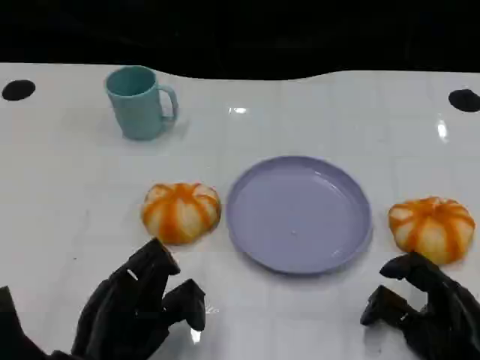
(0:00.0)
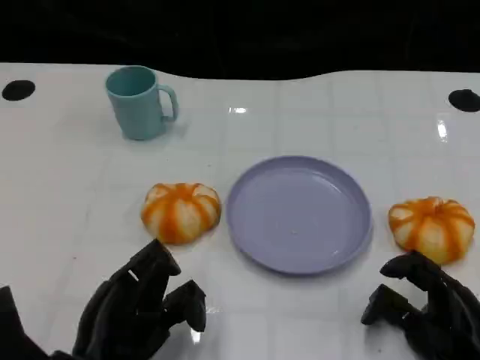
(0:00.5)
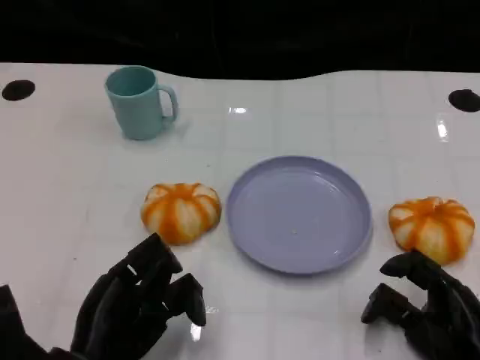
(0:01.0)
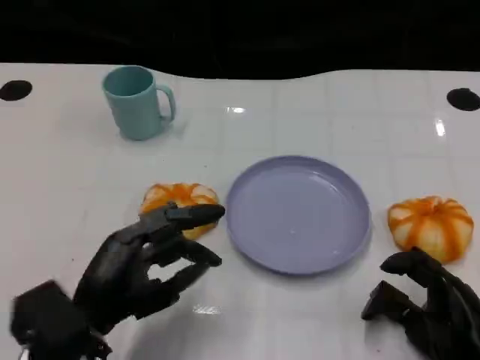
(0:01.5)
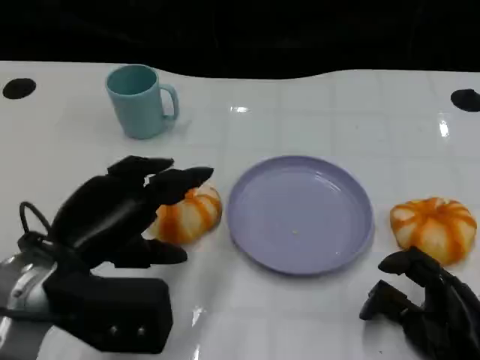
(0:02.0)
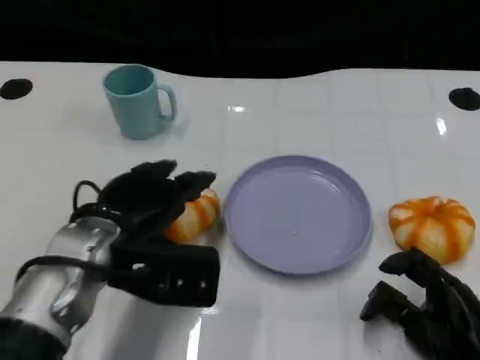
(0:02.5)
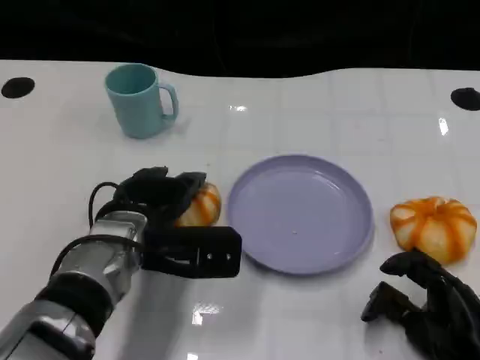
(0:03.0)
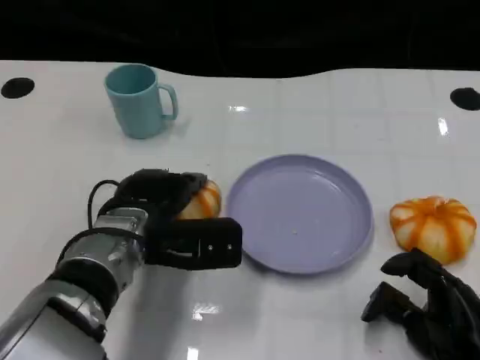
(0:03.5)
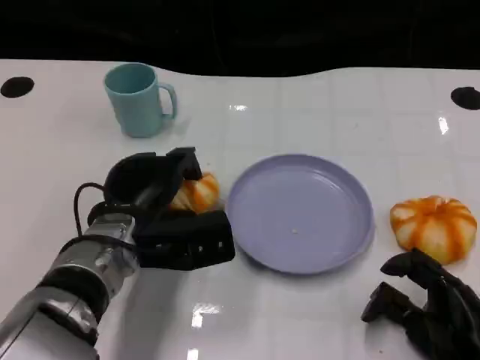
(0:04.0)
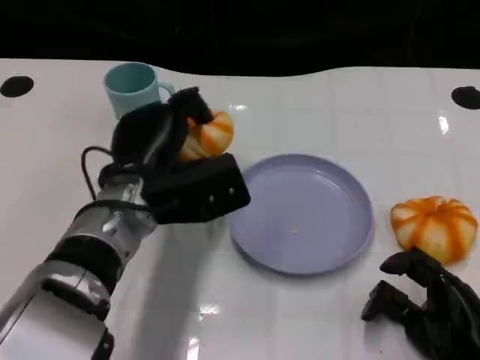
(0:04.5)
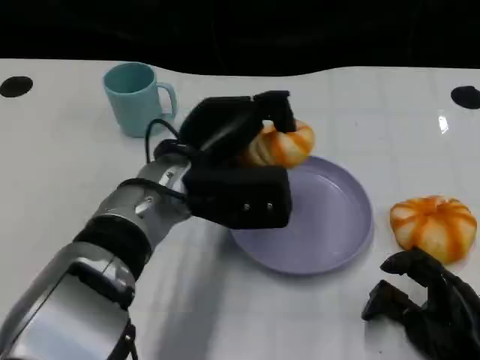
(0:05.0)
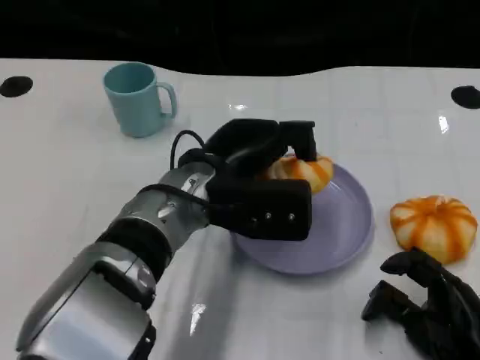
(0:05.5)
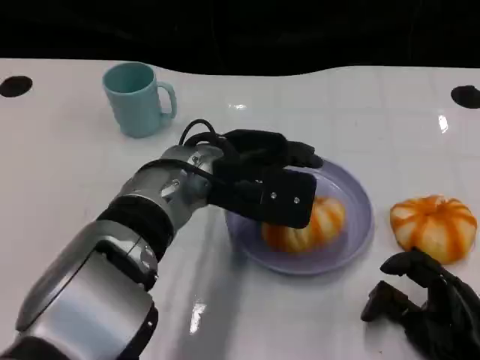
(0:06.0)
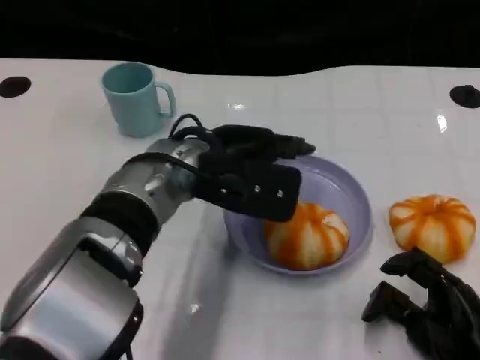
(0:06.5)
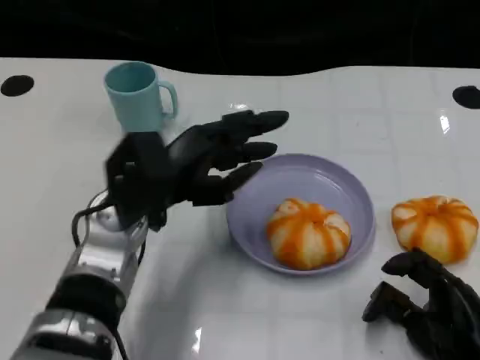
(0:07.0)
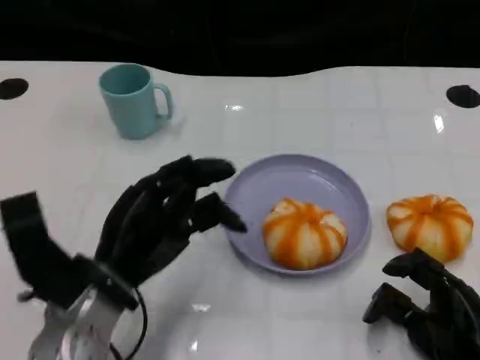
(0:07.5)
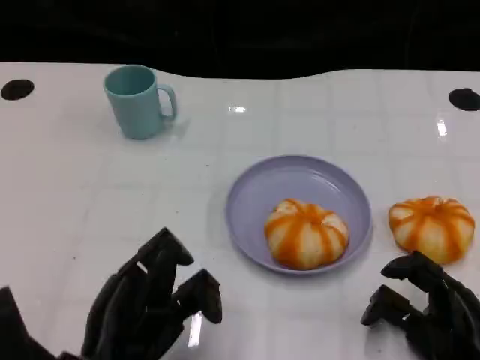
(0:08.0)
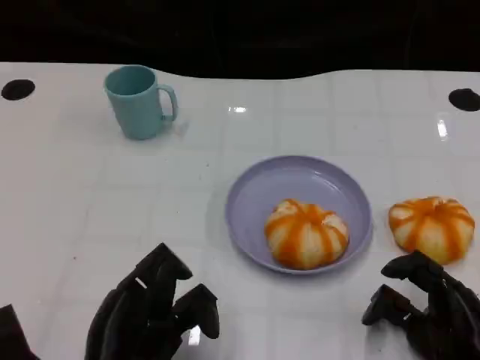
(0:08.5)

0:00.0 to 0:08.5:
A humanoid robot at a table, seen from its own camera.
Task of the whole recording: Grasp the bread from the table and place it into the plate.
0:00.0 to 0:02.0: The left hand shifts approximately 10 cm upward and forward.
0:02.0 to 0:04.0: The left hand heads forward, downward and to the right, covering some 10 cm.
0:04.0 to 0:06.5: The left hand shifts some 10 cm upward and to the right.
0:06.5 to 0:08.5: The left hand travels backward, downward and to the left by approximately 25 cm.

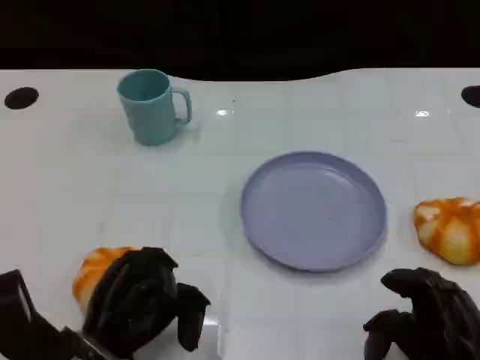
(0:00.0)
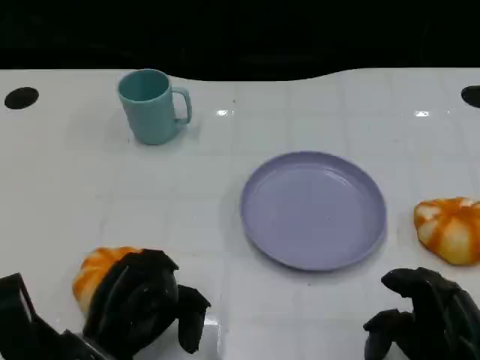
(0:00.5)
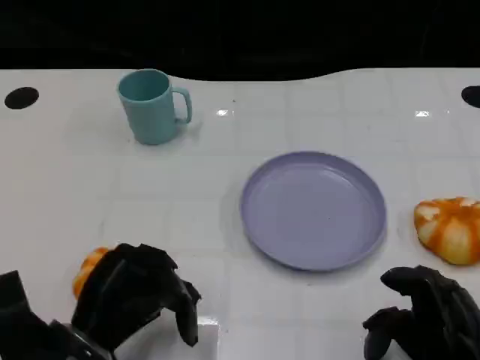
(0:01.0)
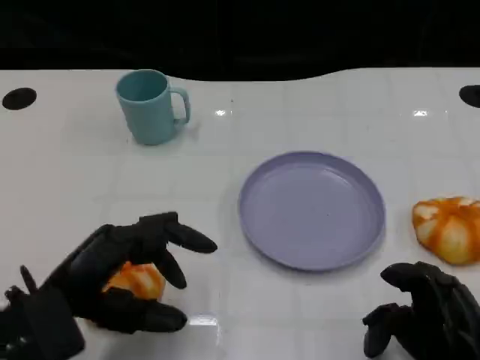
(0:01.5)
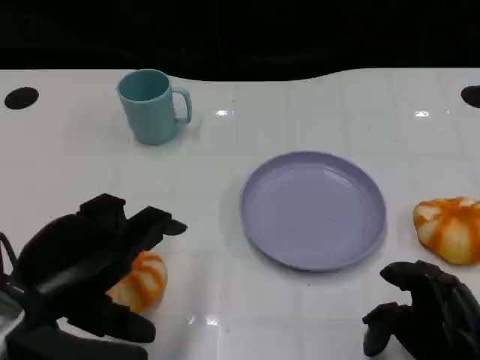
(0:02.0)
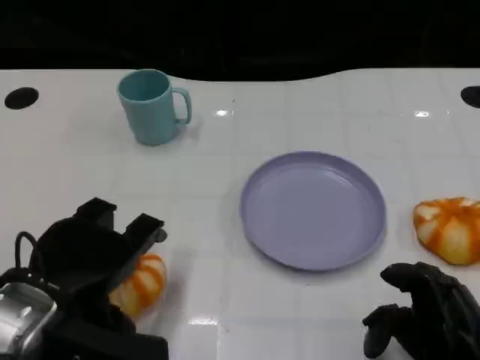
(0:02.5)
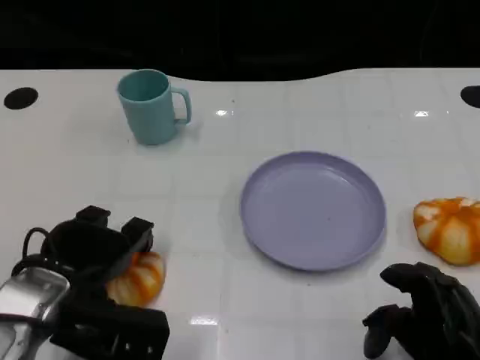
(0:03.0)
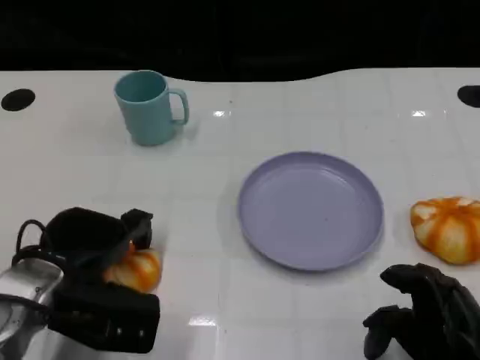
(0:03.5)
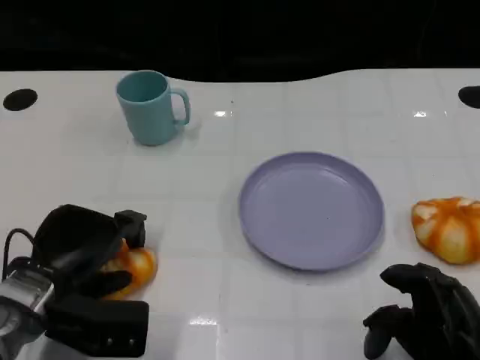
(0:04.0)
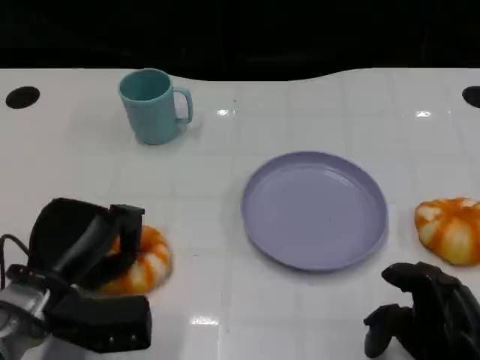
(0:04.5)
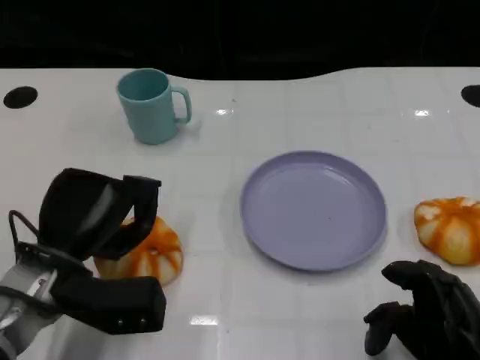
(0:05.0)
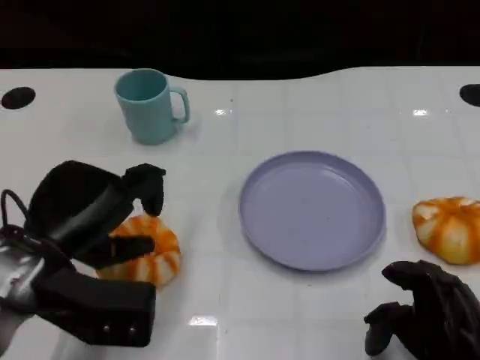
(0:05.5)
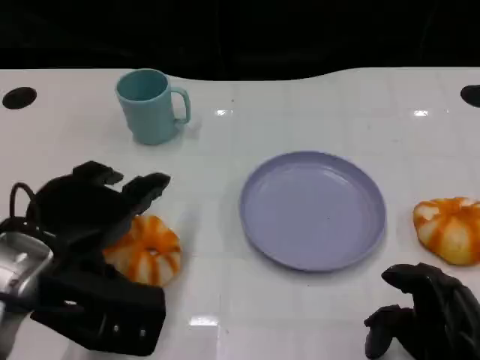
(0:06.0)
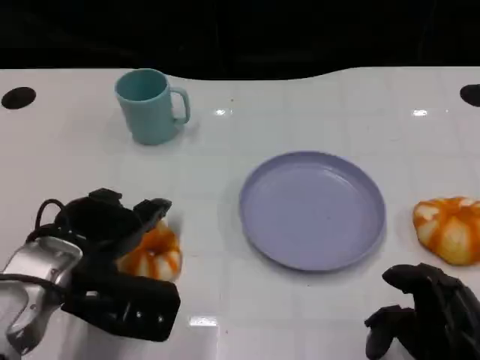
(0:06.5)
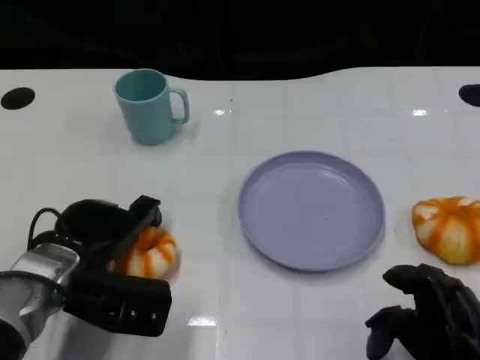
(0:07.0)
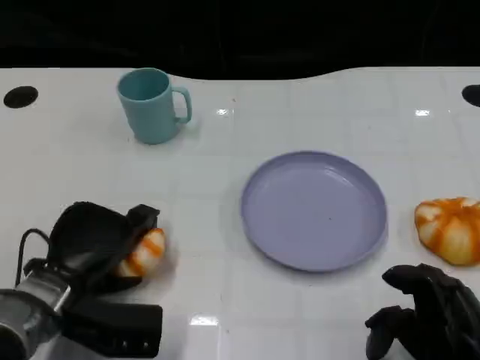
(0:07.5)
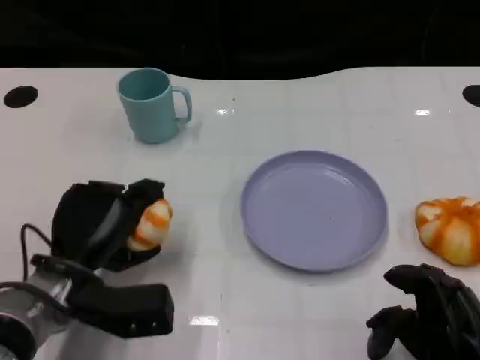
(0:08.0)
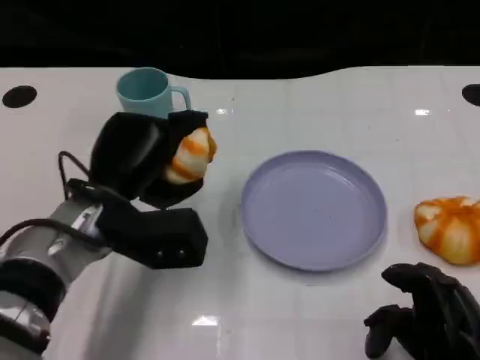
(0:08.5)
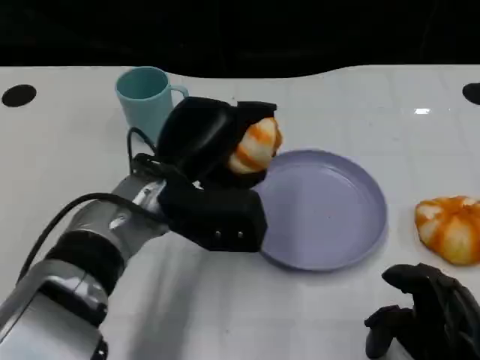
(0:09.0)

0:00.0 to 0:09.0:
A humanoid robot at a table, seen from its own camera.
Task of the whole recording: Grasp the bread from the table and place it into the plate.
0:00.0 to 0:02.0: The left hand is displaced upward by about 10 cm.
0:02.0 to 0:04.5: The left hand is displaced downward and forward by some 10 cm.
0:04.5 to 0:07.0: The left hand travels upward and back again, some 10 cm each way.
0:07.0 to 0:09.0: The left hand goes about 15 cm to the right and upward.

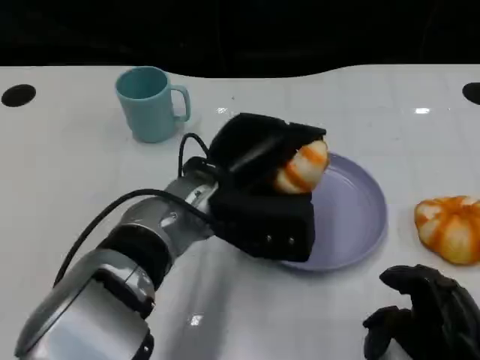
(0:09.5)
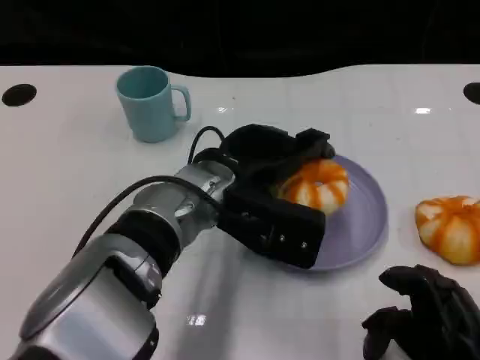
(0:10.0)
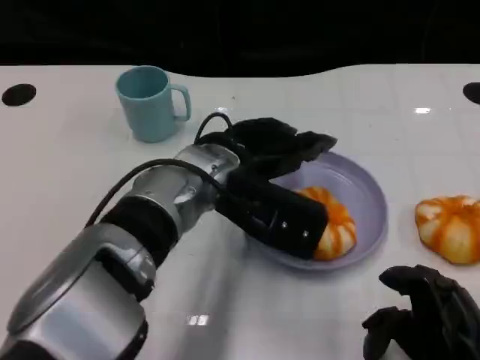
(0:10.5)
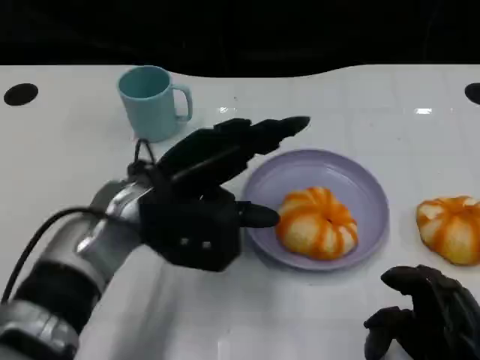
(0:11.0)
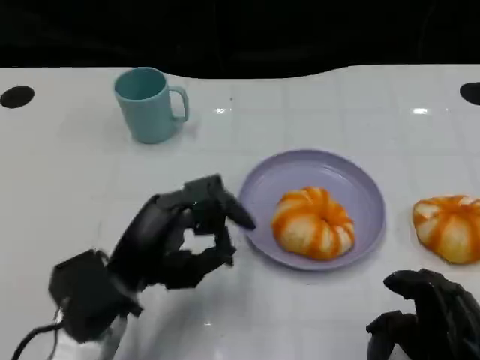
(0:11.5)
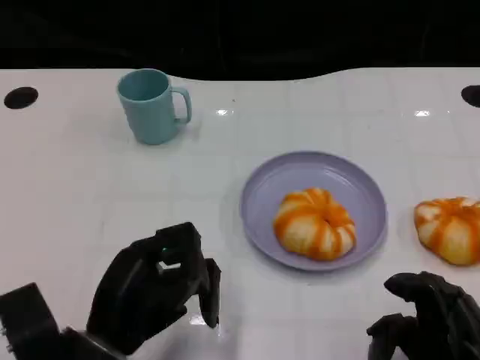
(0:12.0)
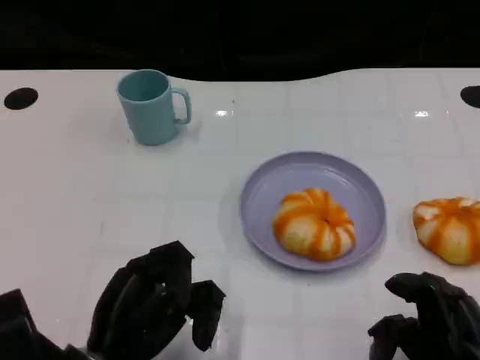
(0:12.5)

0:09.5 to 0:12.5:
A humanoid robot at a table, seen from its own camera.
Task of the whole recording: Grasp the bread from the table and place it into the plate.
0:09.5 to 0:11.0: The left hand heads to the left, covering approximately 5 cm.
0:11.0 to 0:12.5: The left hand moves backward, downward and to the left, roughly 15 cm.

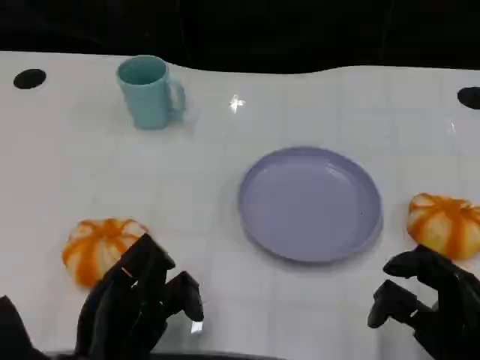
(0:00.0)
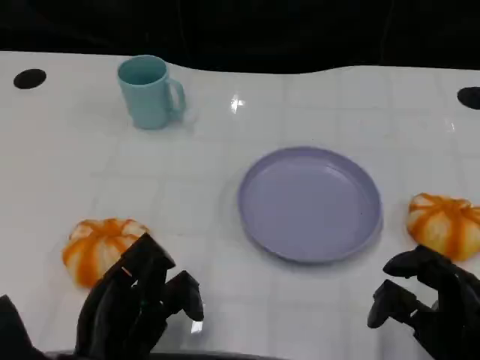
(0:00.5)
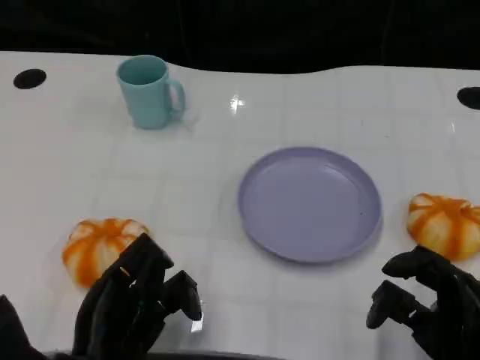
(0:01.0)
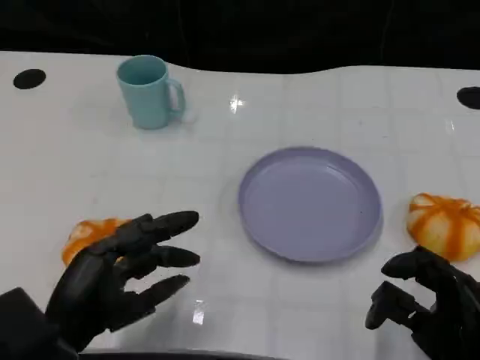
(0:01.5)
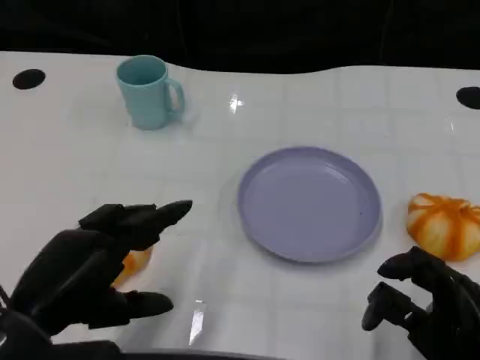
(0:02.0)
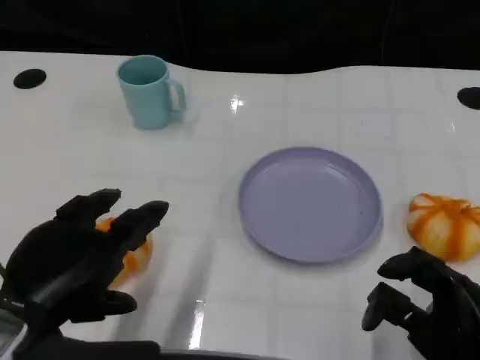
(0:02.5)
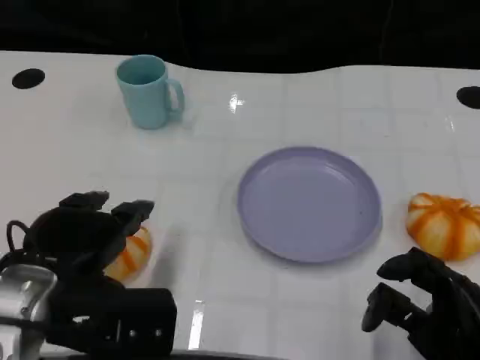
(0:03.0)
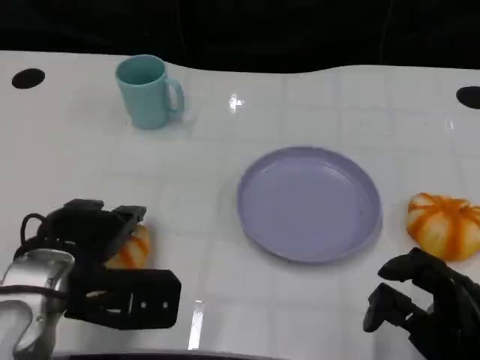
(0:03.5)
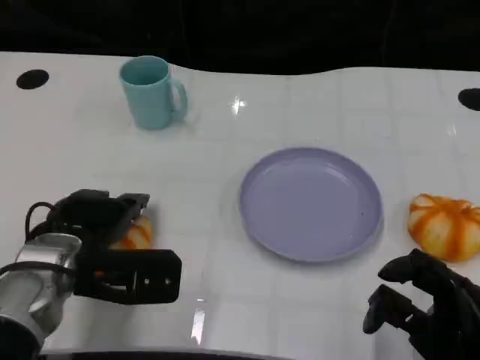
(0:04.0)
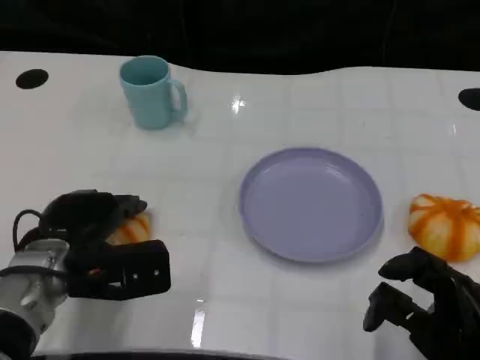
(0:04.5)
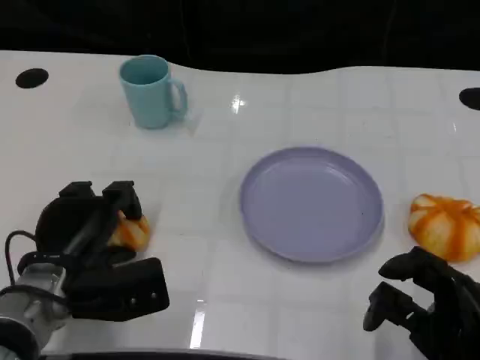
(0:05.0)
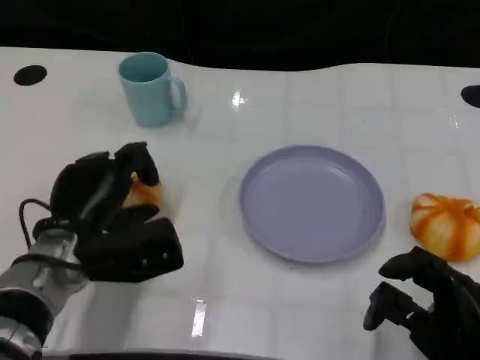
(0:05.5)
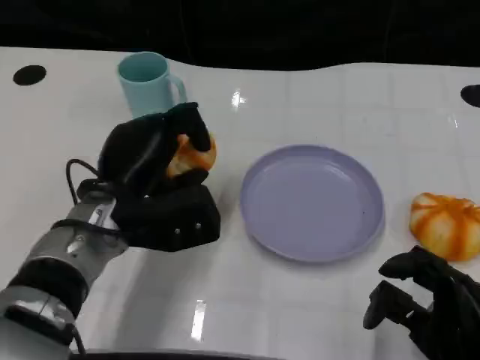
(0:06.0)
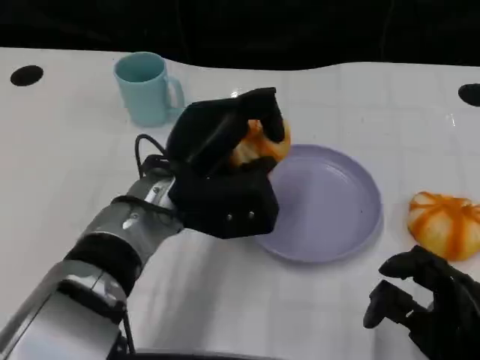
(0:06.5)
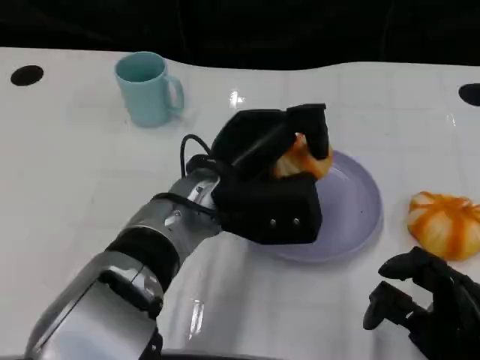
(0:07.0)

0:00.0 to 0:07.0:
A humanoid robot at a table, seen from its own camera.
Task of the whole recording: Grasp the bread from the table and place it into the plate.
0:00.0 to 0:02.0: The left hand shifts roughly 10 cm upward.
0:02.0 to 0:03.5: The left hand is displaced forward by roughly 10 cm.
0:03.5 to 0:05.0: The left hand travels downward by some 5 cm.
0:05.0 to 0:07.0: The left hand moves to the right and upward, roughly 20 cm.
